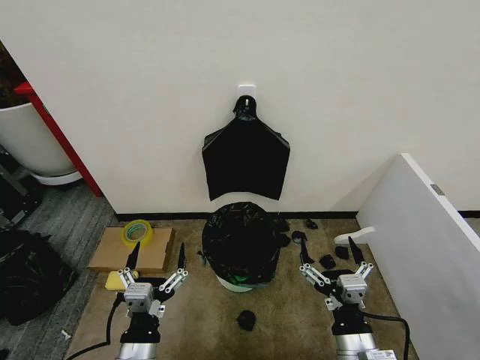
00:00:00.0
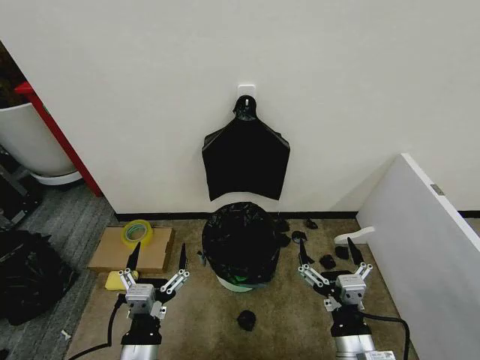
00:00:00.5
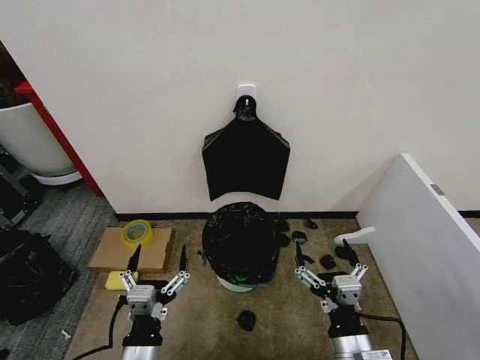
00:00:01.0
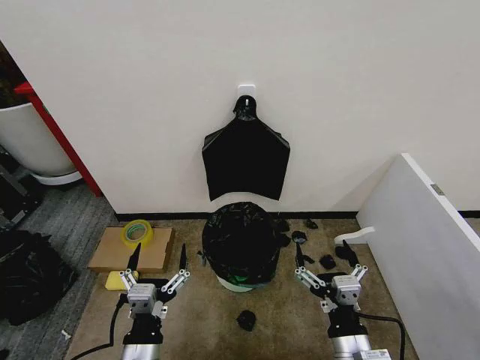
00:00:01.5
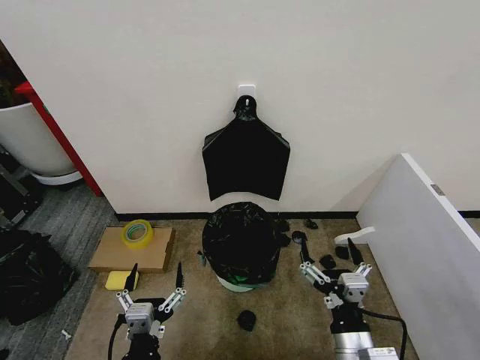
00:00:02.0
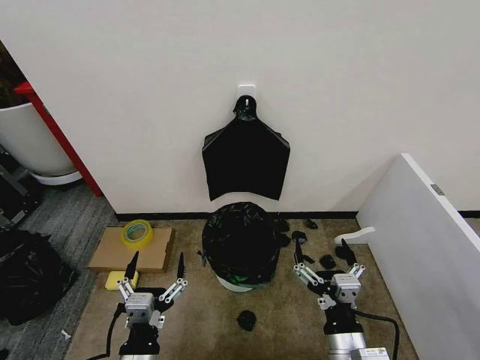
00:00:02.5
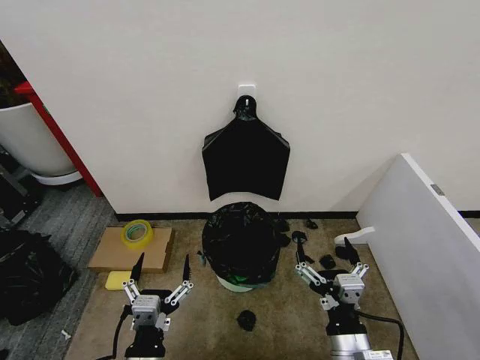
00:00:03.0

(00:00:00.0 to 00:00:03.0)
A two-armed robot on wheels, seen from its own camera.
Task of the whole recording: Place the garbage bag over the trash bin.
00:00:00.0 - 00:00:01.5: Both grippers stay put.
00:00:01.5 - 00:00:03.0: There are only small adjustments of the grippers.

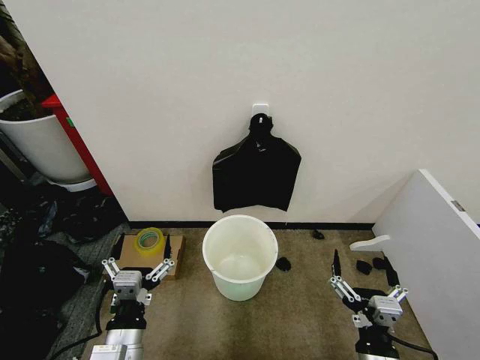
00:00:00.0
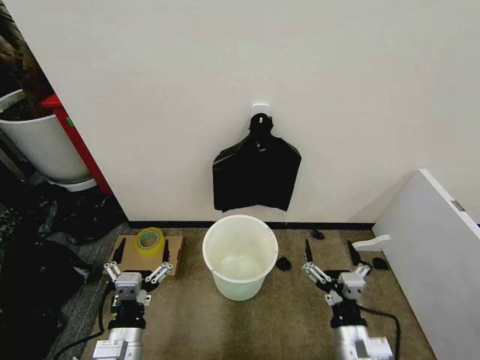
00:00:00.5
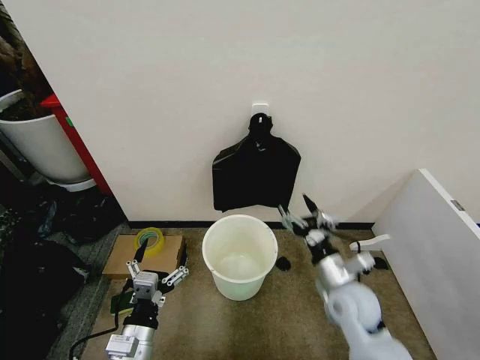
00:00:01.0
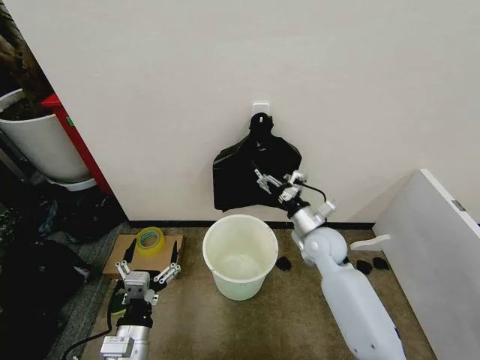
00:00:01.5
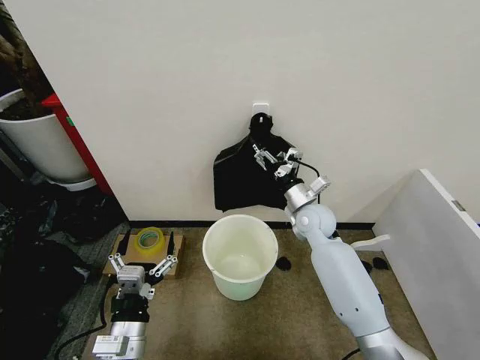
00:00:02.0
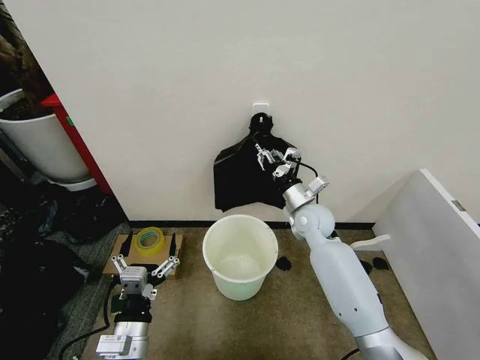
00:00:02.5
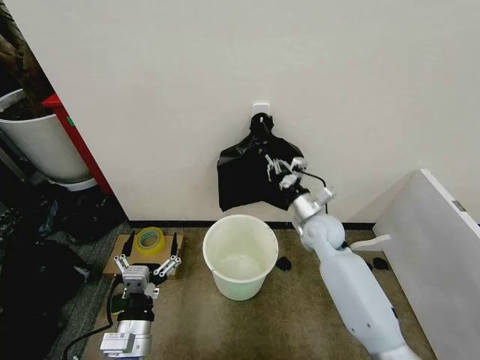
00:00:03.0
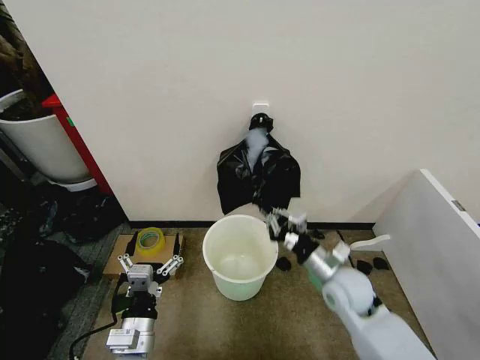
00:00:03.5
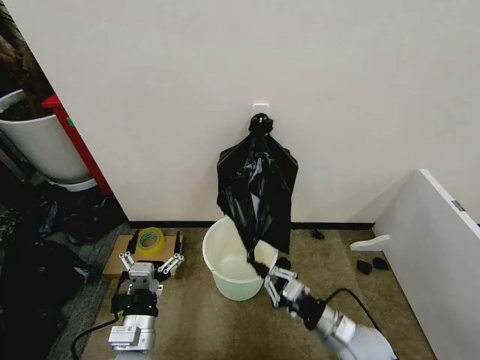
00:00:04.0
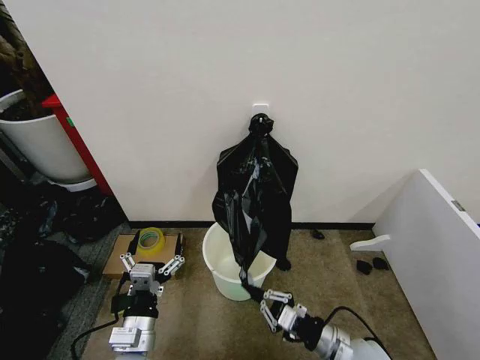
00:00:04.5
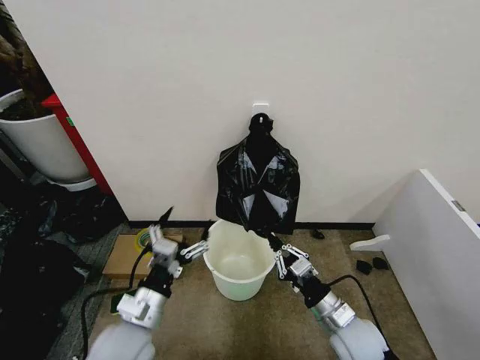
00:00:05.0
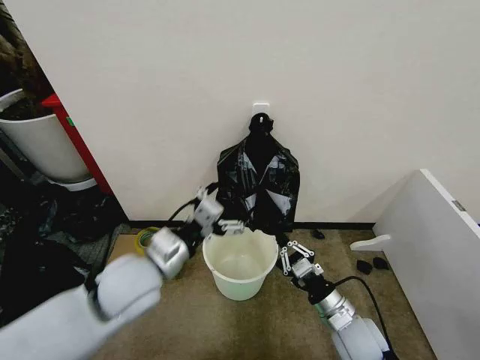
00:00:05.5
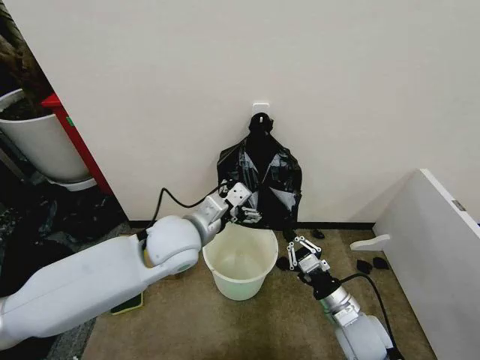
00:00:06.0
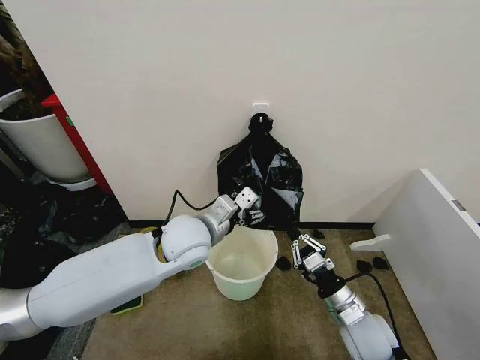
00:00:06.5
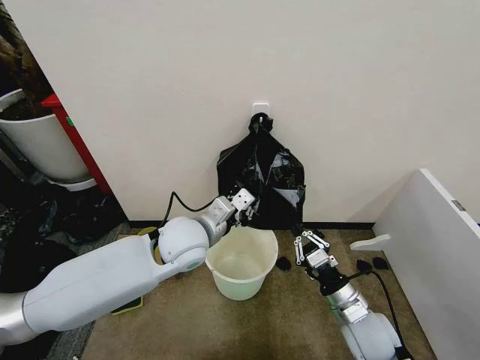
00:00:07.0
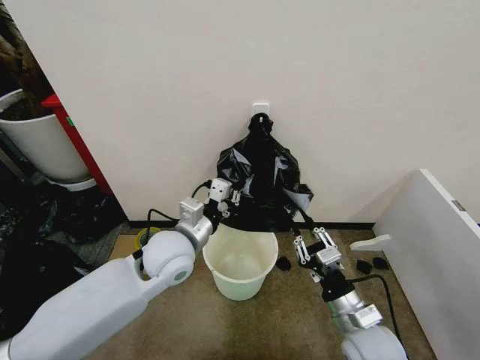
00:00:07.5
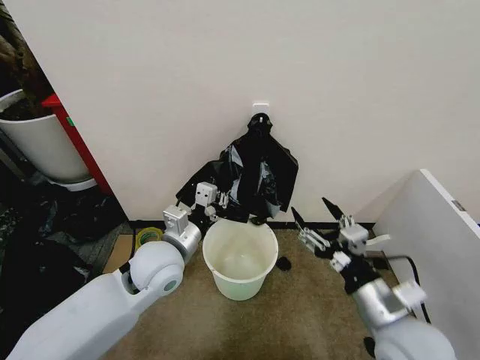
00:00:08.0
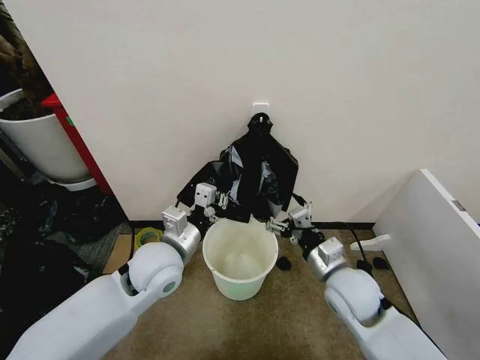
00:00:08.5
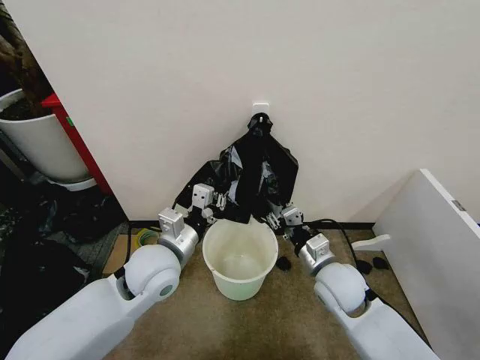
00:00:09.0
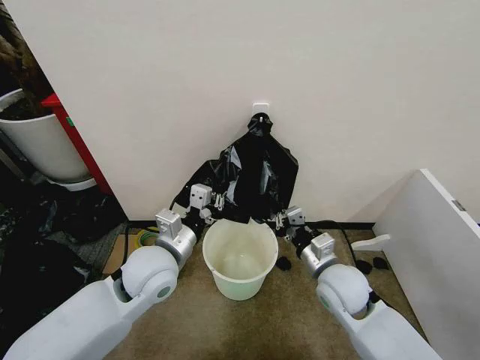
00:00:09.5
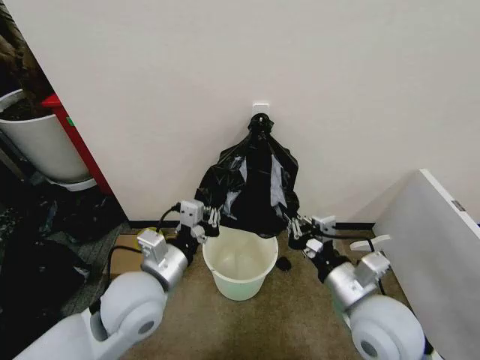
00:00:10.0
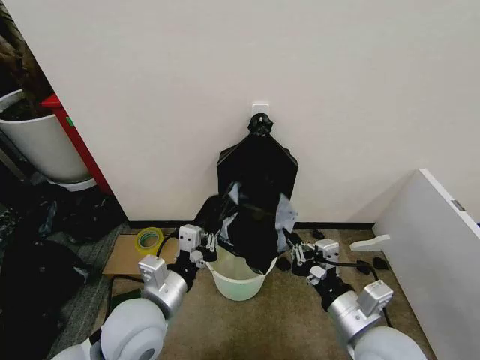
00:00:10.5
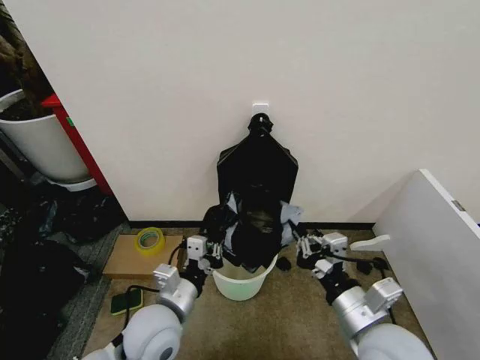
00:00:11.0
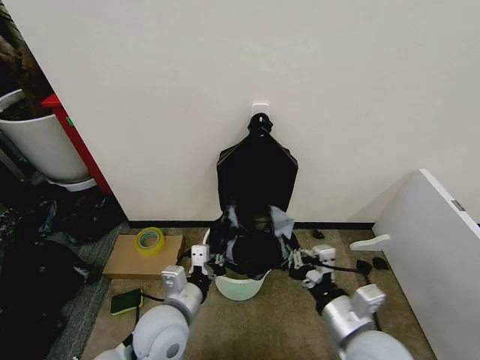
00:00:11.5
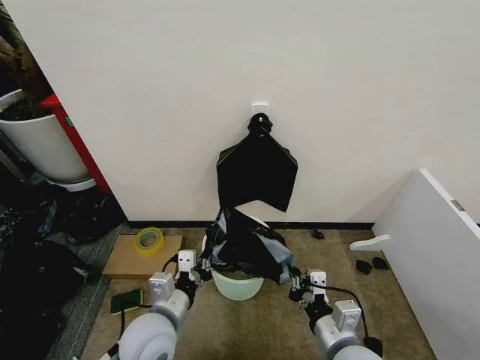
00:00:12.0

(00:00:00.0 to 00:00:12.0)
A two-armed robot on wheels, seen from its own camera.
Task of the whole recording: Place the garbage bag over the trash bin.
00:00:02.0 - 00:00:04.0: The right gripper moves backward, about 25 cm, and closes.
00:00:04.0 - 00:00:06.0: The left gripper is displaced forward, upward and to the right by approximately 25 cm.
00:00:06.0 - 00:00:08.0: The right gripper goes some 15 cm upward, and opens. Meanwhile the left gripper moves approximately 5 cm, and closes up.
00:00:08.0 - 00:00:10.0: The right gripper goes forward and returns, roughly 10 cm each way, and closes its fingers; the left gripper moves backward, roughly 5 cm.
00:00:10.0 - 00:00:12.0: The left gripper is displaced downward by roughly 10 cm. Meanwhile the right gripper moves downward and backward, some 10 cm.

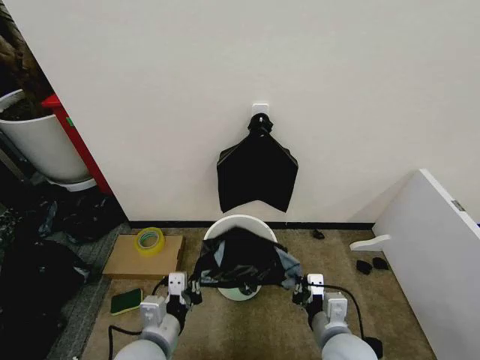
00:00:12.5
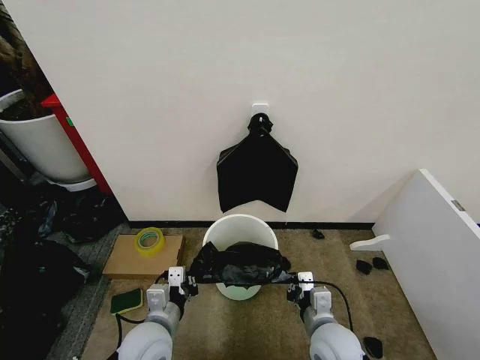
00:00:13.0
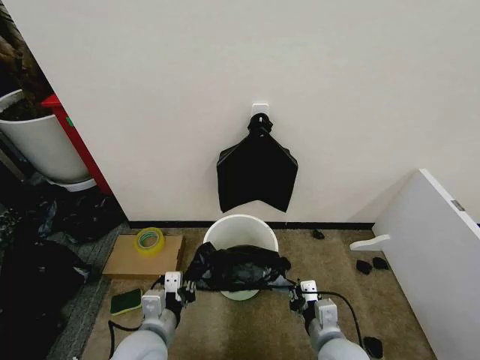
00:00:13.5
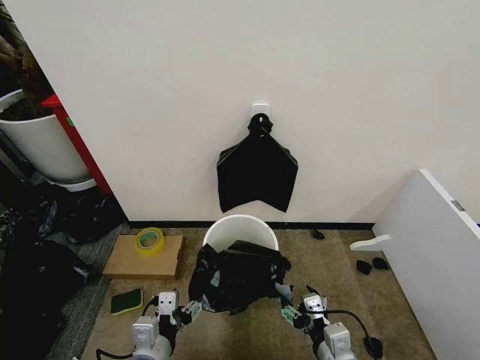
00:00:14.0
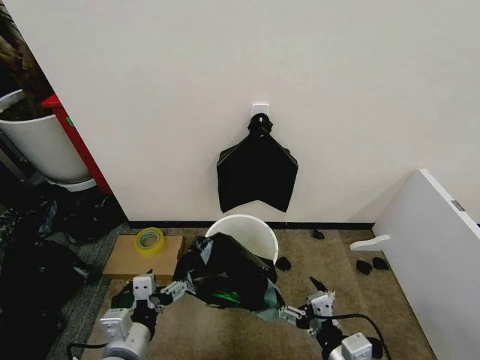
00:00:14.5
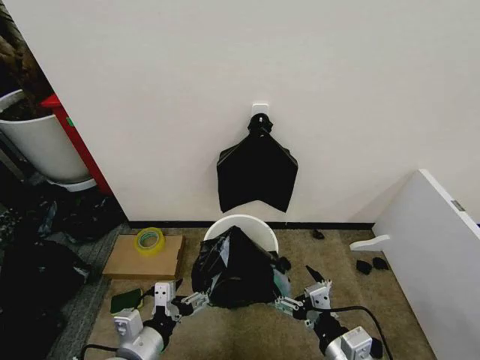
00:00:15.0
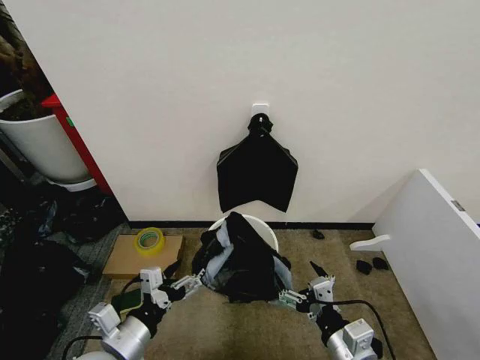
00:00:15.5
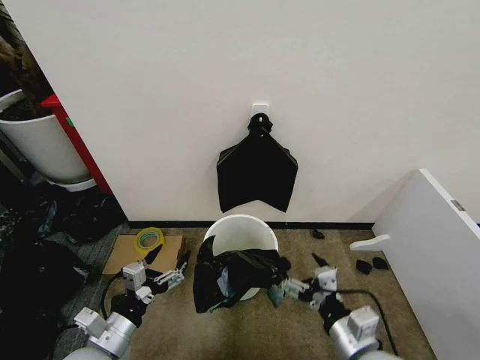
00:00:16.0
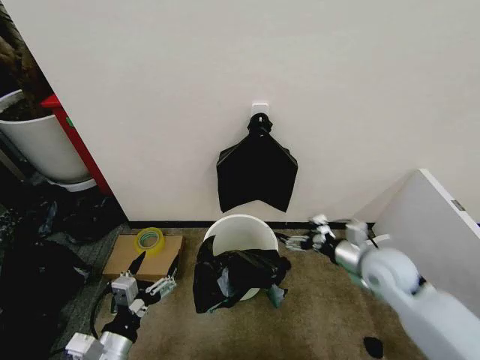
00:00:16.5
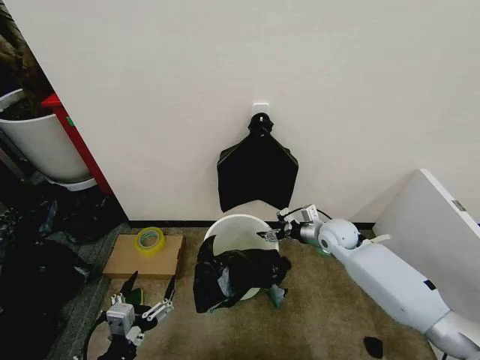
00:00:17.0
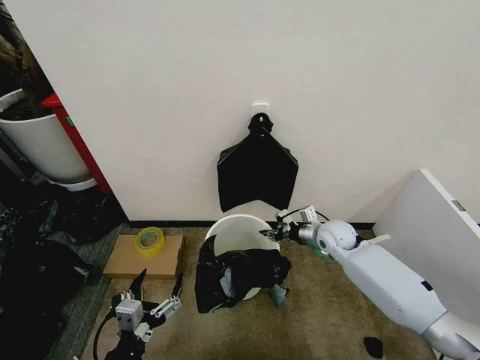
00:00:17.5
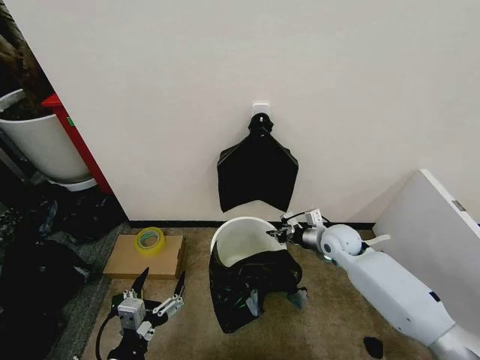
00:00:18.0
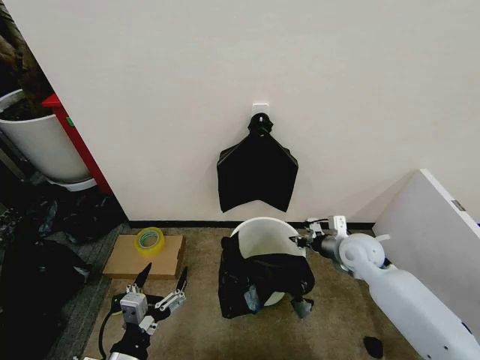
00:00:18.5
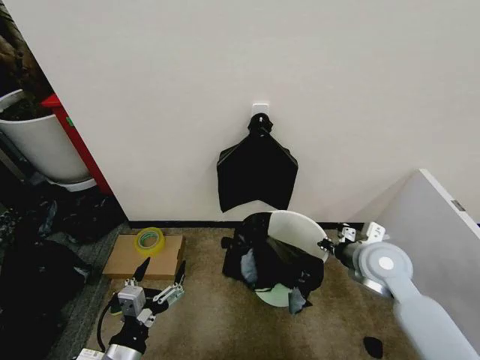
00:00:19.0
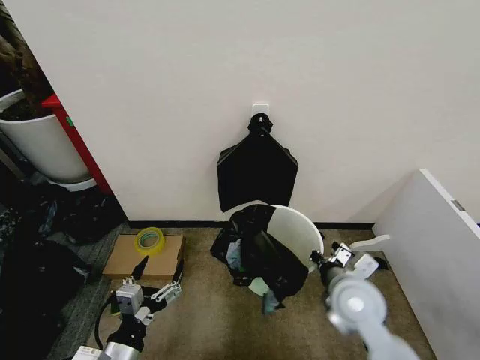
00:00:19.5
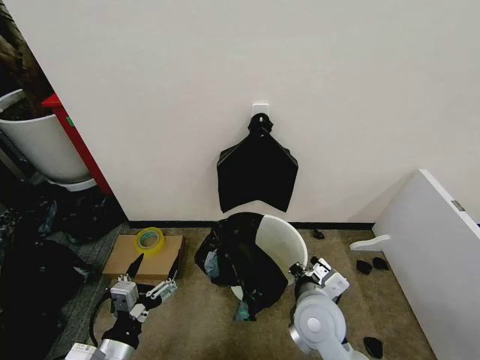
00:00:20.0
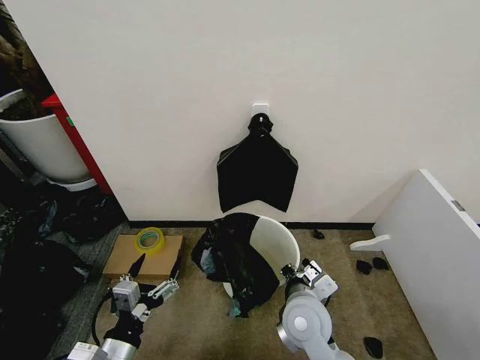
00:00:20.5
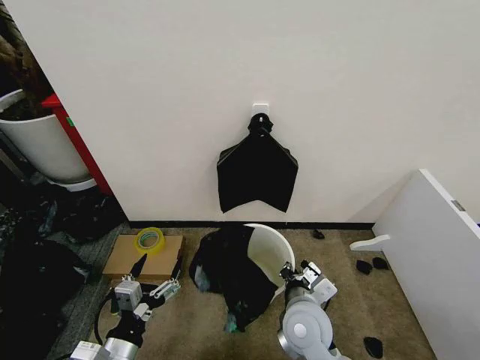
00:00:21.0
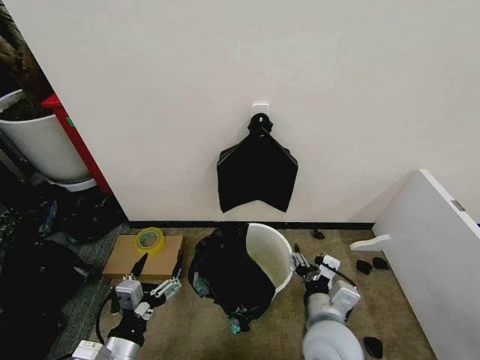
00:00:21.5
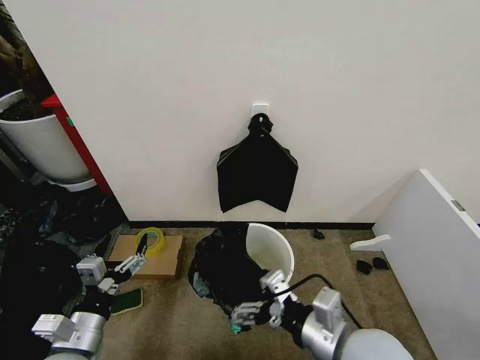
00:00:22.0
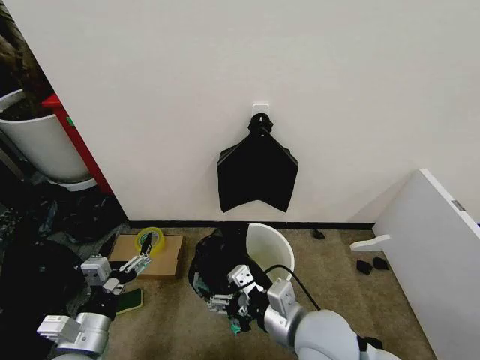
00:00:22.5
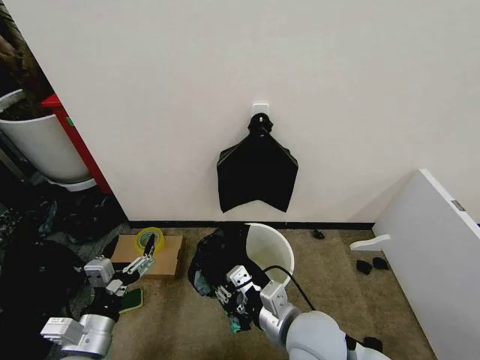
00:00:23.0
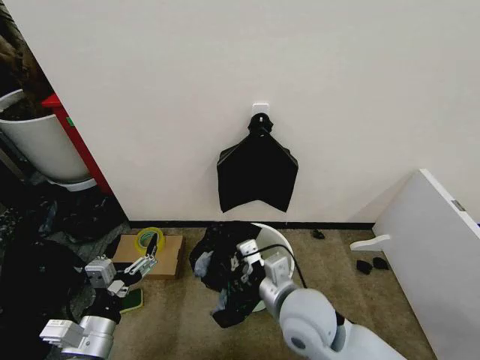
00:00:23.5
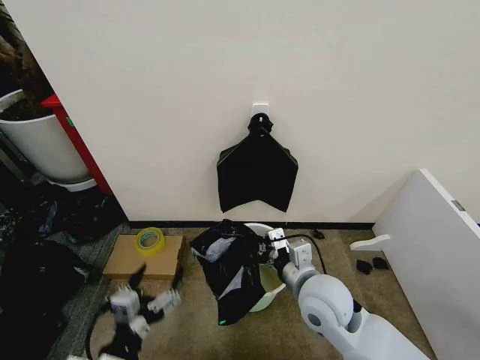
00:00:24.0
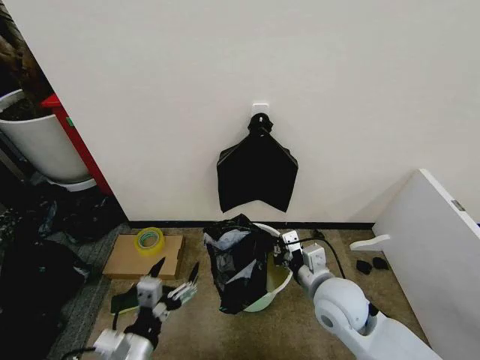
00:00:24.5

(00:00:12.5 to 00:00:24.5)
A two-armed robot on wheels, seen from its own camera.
Task of the whole recording: Place the garbage bag over the trash bin.
00:00:12.5 - 00:00:14.5: The left gripper opens up, while the right gripper goes about 5 cm backward, and opens its fingers.
00:00:14.5 - 00:00:16.5: The right gripper is displaced forward and to the right by approximately 25 cm, while the left gripper shifts by about 5 cm.
00:00:16.5 - 00:00:18.5: The right gripper is displaced forward by about 5 cm, and closes its fingers.
00:00:18.5 - 00:00:20.5: The right gripper heads to the left and backward, covering approximately 20 cm.
00:00:20.5 - 00:00:22.5: The left gripper shifts by roughly 5 cm, while the right gripper travels upward and backward by roughly 10 cm, and opens.
00:00:22.5 - 00:00:24.5: The right gripper is displaced forward and to the right by approximately 10 cm, and closes; the left gripper is displaced to the right by approximately 5 cm.
